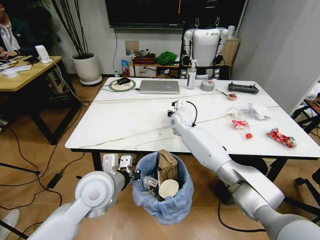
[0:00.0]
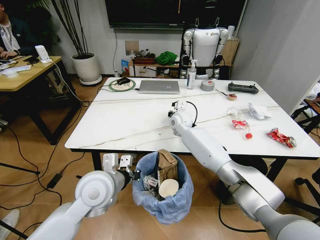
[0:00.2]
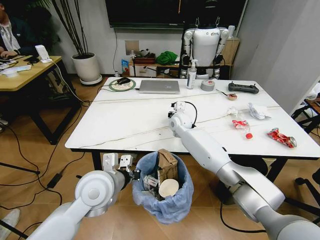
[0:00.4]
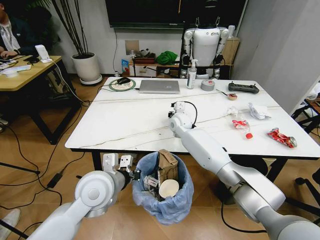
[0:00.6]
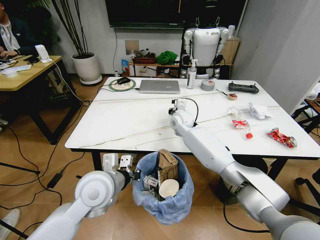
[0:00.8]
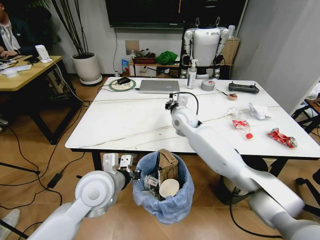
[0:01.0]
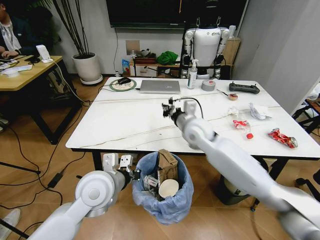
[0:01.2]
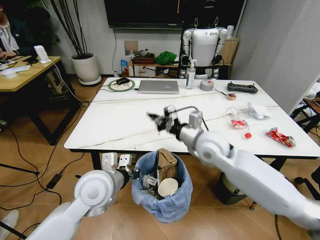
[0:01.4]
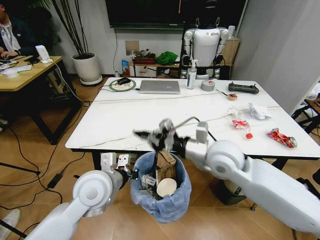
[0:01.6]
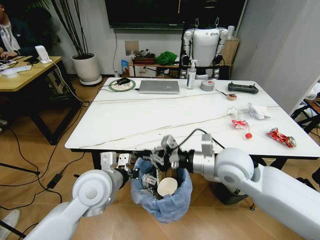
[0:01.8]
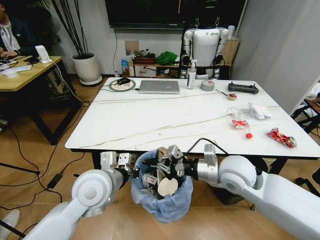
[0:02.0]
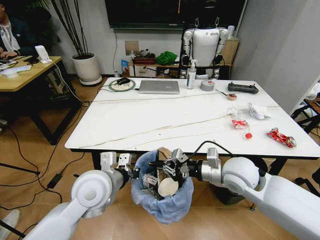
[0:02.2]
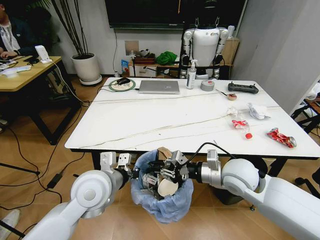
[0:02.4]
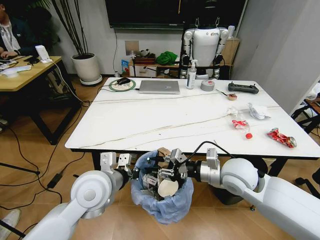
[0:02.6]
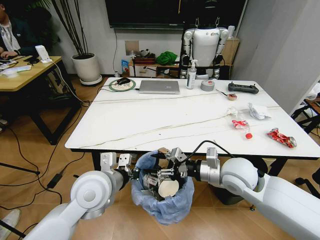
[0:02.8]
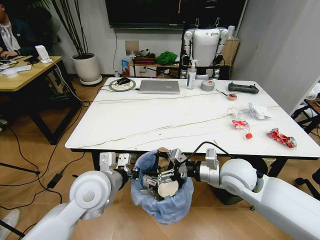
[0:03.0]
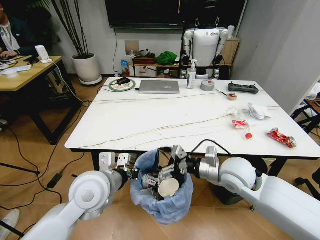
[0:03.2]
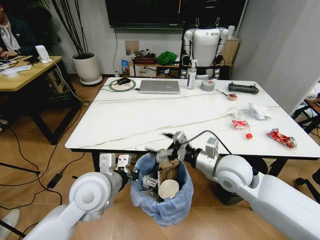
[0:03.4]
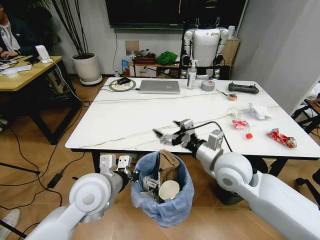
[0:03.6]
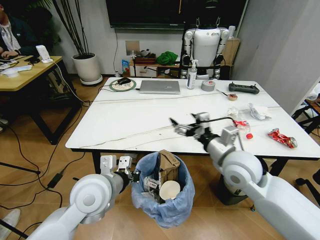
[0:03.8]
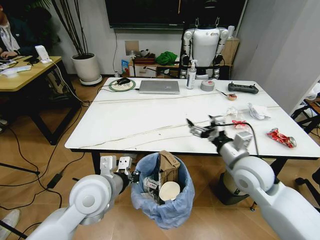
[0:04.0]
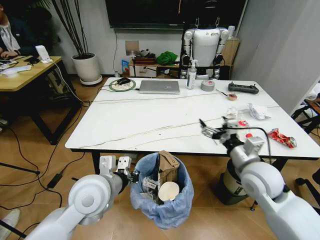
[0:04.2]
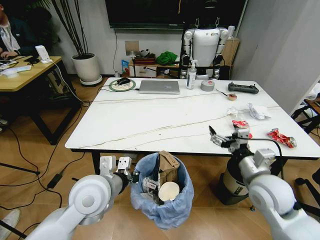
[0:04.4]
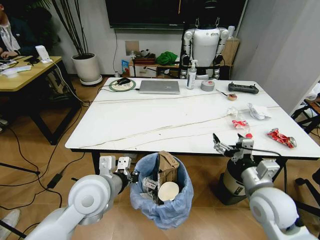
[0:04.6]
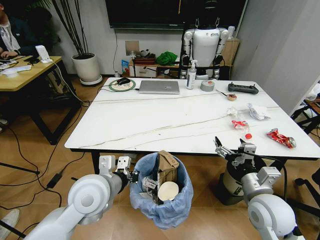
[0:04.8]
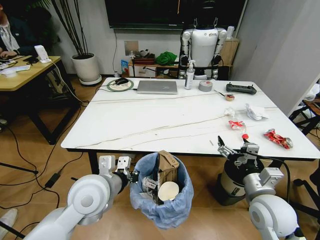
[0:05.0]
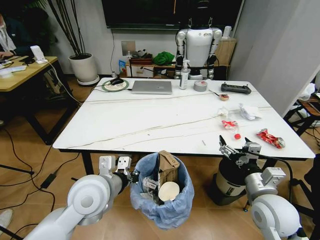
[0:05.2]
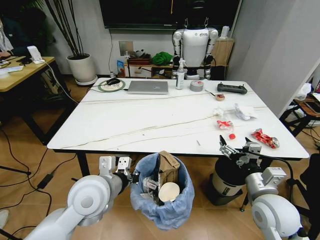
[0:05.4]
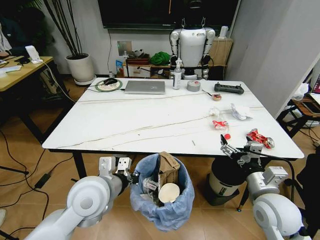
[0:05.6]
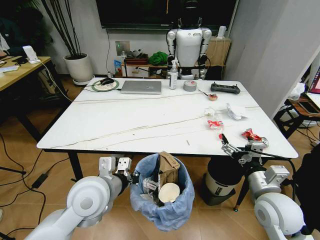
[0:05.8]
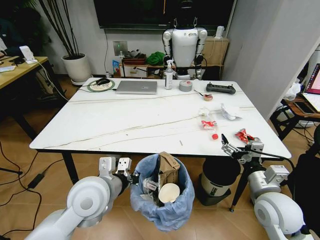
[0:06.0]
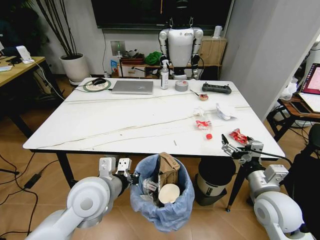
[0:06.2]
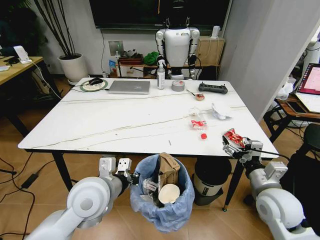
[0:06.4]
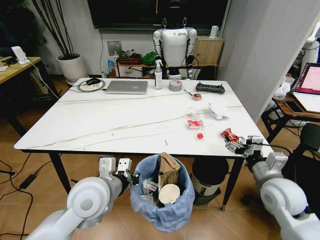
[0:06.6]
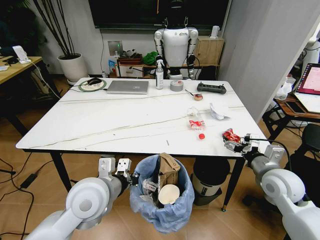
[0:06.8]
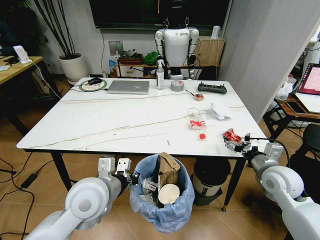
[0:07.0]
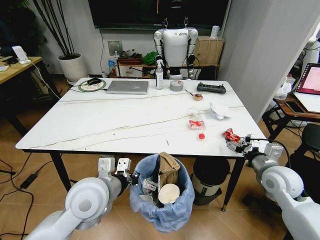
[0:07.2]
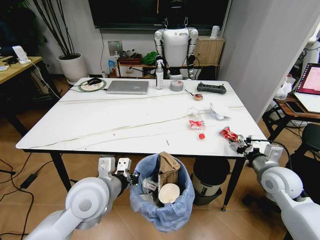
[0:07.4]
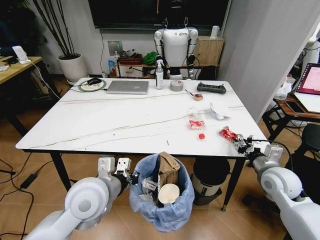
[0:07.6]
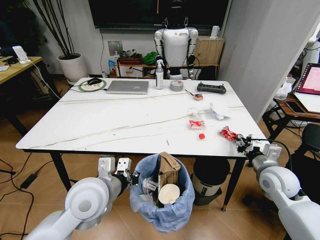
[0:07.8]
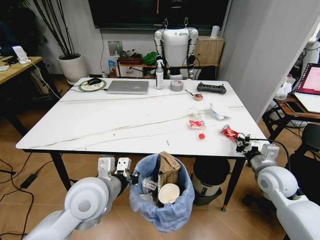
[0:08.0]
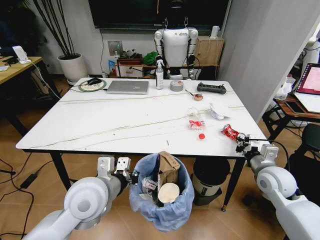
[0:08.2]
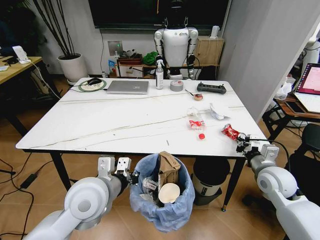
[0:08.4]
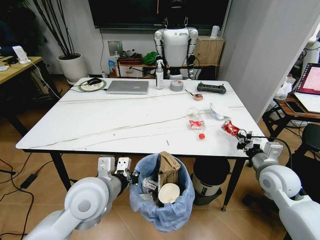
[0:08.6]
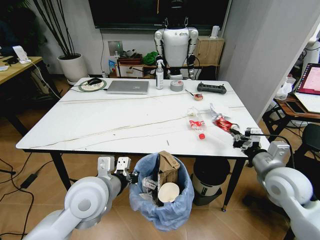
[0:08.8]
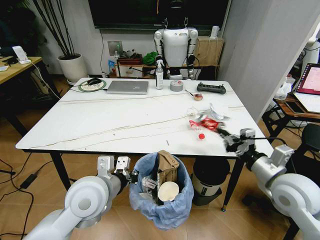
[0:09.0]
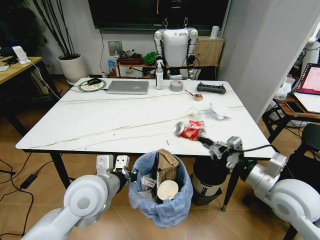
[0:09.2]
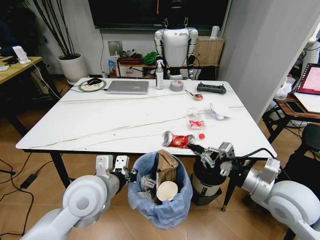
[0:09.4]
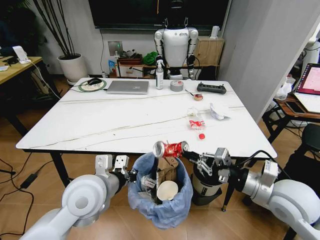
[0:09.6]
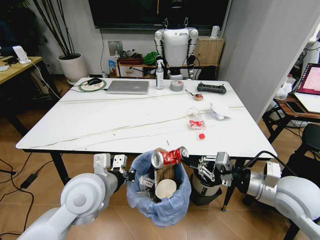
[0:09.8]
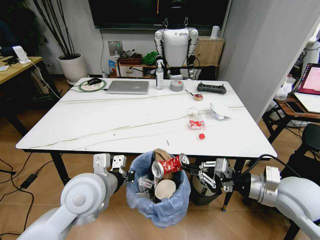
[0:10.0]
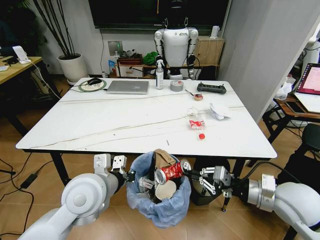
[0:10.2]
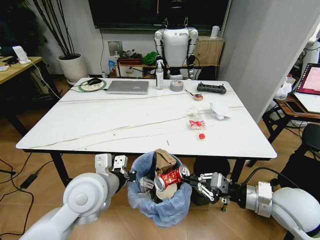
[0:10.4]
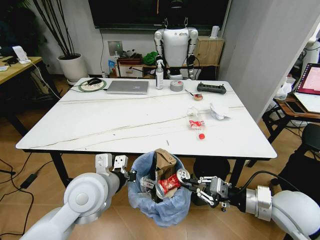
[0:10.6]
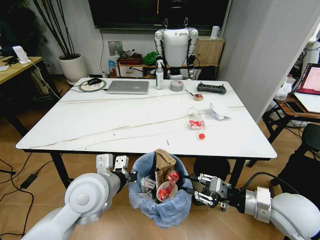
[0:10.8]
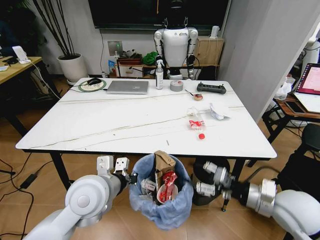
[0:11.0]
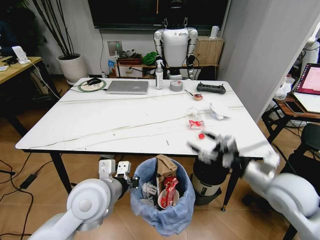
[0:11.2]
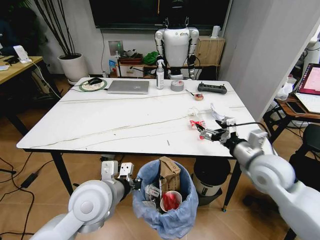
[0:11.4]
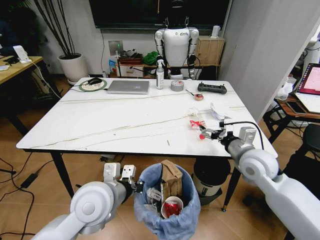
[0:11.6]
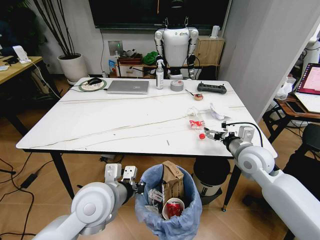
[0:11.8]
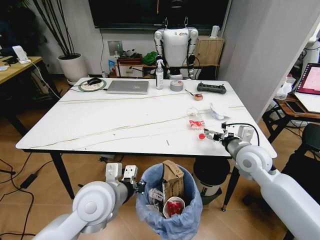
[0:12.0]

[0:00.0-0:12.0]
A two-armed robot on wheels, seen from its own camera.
Task of the whole recording: Pick up the trash bin and place the trash from the table into it.
0:00.0 to 0:01.6: The right gripper shifts roughly 25 cm backward, and closes its fingers.
0:01.6 to 0:03.0: The right gripper moves downward, about 5 cm, and opens.
0:03.0 to 0:04.4: The right gripper heads to the right and backward, covering about 10 cm.
0:06.0 to 0:07.6: The right gripper goes roughly 10 cm forward and to the right, and closes.
0:07.6 to 0:09.0: The right gripper heads upward and backward, covering roughly 10 cm, and closes its fingers.
0:10.4 to 0:12.0: The right gripper is displaced forward by roughly 15 cm, and opens its fingers.

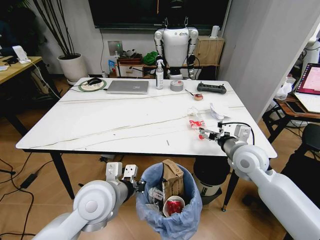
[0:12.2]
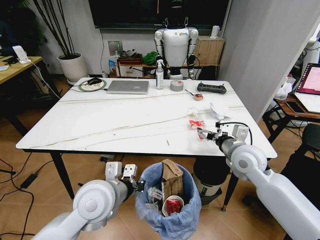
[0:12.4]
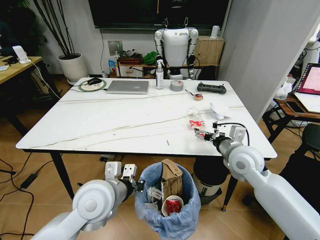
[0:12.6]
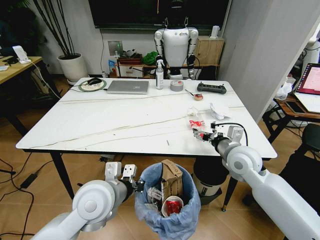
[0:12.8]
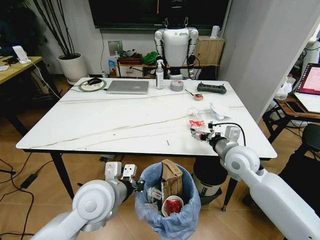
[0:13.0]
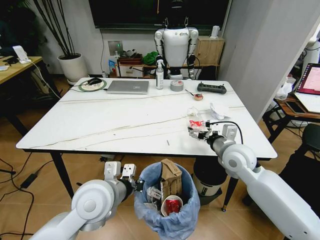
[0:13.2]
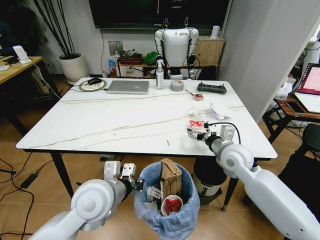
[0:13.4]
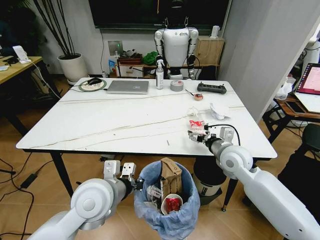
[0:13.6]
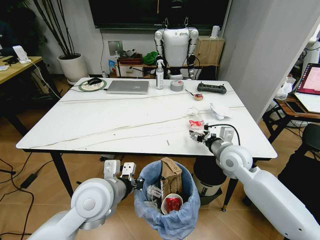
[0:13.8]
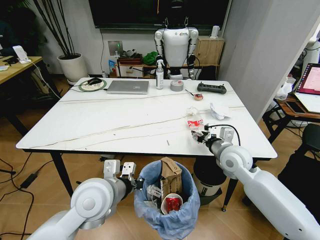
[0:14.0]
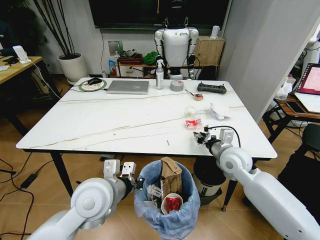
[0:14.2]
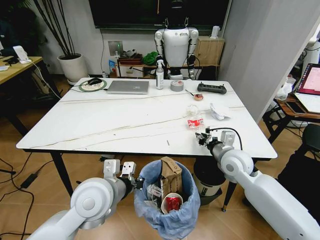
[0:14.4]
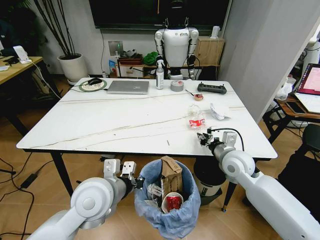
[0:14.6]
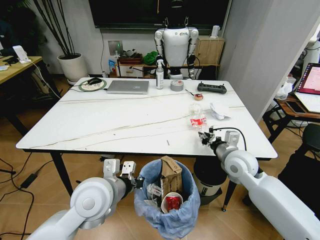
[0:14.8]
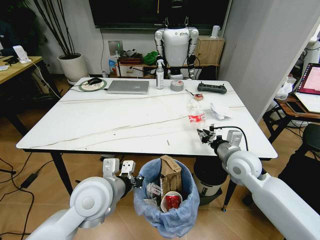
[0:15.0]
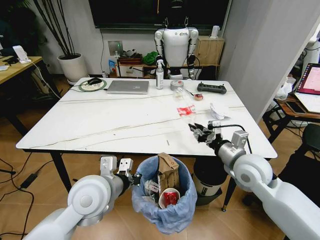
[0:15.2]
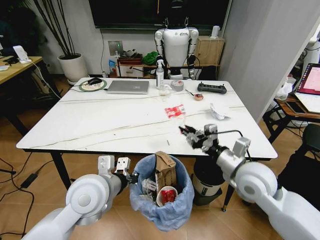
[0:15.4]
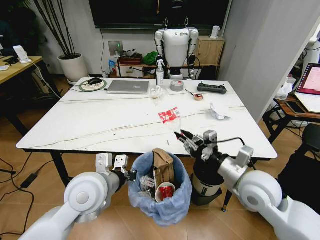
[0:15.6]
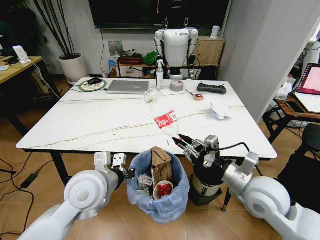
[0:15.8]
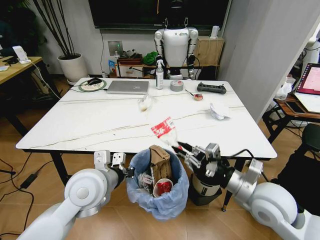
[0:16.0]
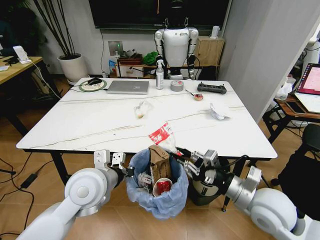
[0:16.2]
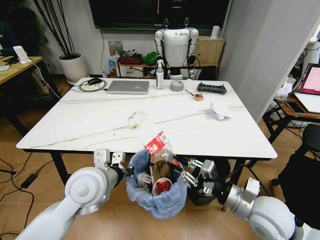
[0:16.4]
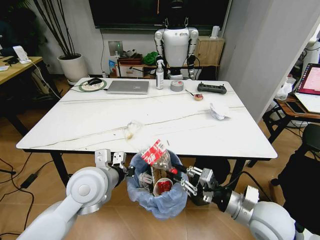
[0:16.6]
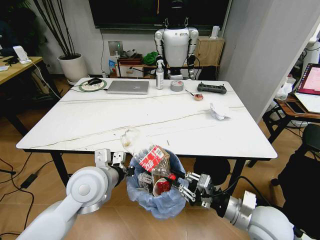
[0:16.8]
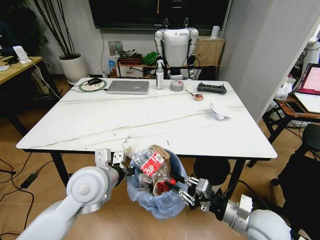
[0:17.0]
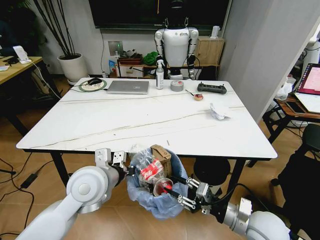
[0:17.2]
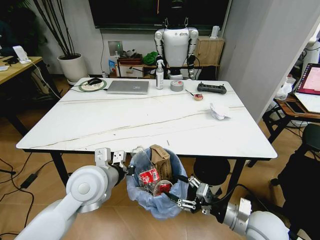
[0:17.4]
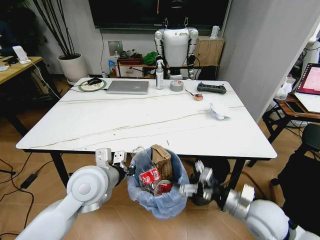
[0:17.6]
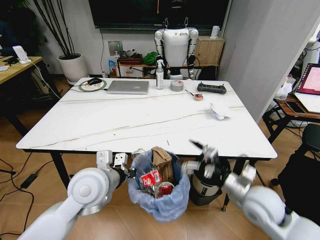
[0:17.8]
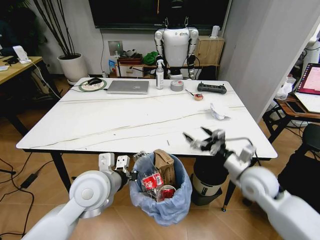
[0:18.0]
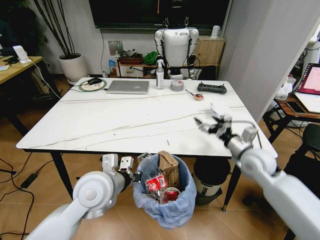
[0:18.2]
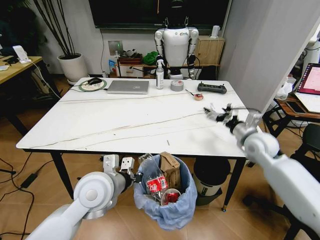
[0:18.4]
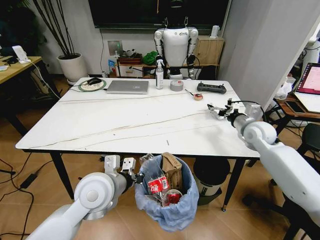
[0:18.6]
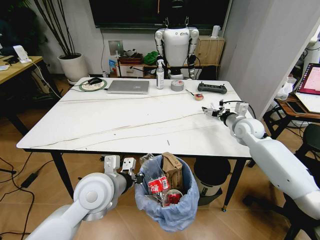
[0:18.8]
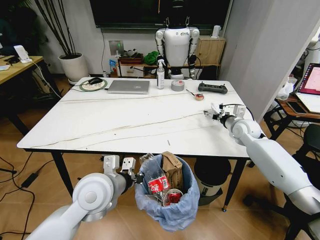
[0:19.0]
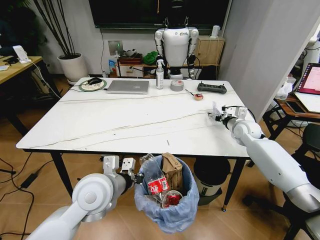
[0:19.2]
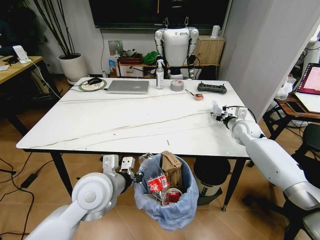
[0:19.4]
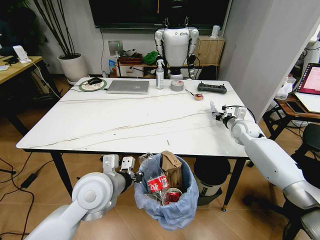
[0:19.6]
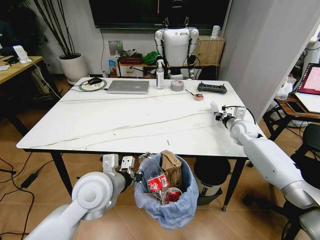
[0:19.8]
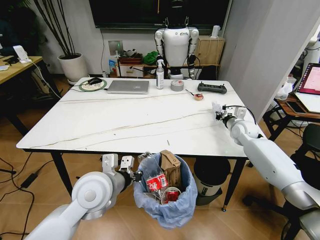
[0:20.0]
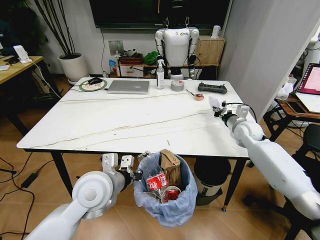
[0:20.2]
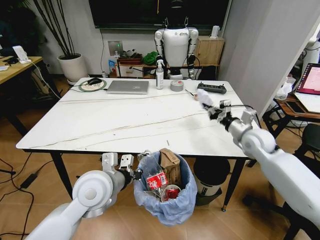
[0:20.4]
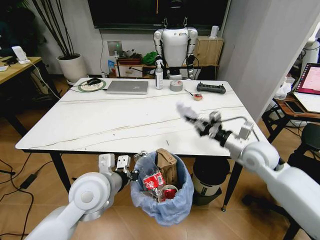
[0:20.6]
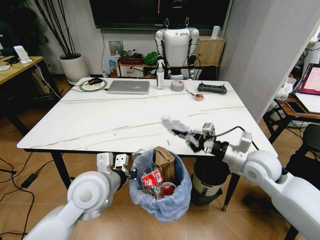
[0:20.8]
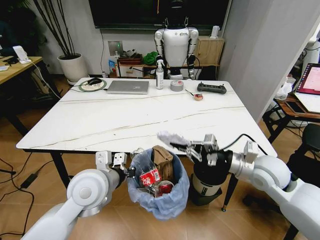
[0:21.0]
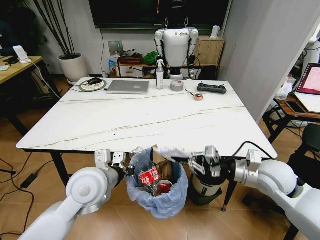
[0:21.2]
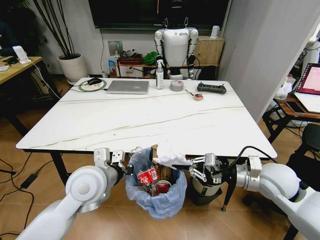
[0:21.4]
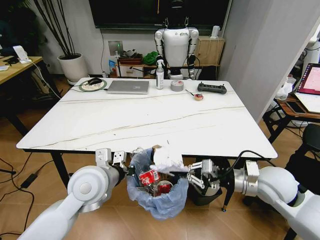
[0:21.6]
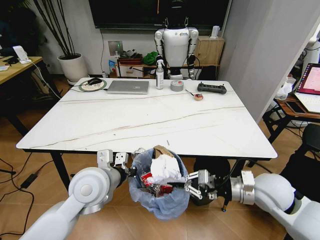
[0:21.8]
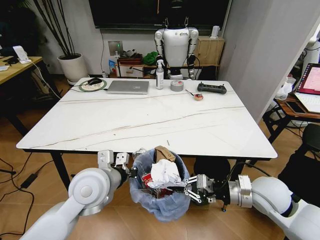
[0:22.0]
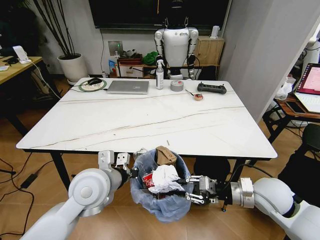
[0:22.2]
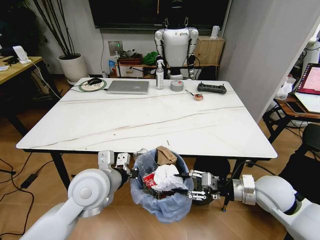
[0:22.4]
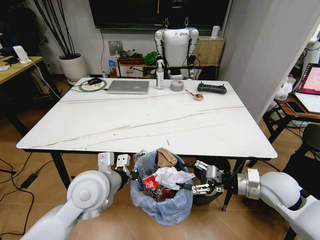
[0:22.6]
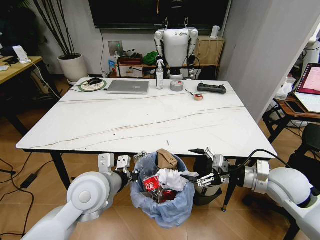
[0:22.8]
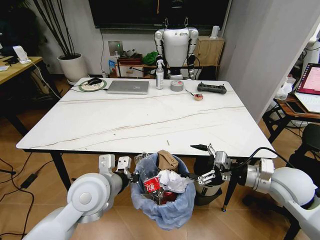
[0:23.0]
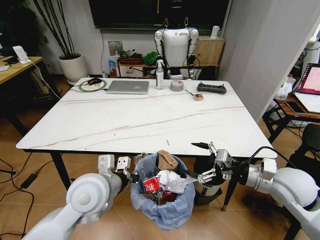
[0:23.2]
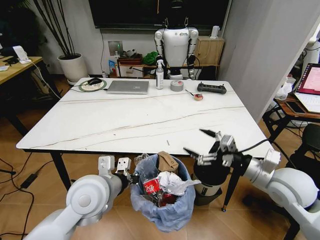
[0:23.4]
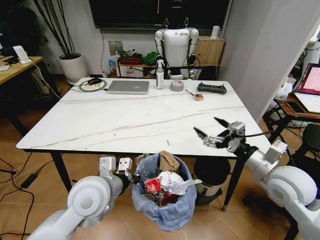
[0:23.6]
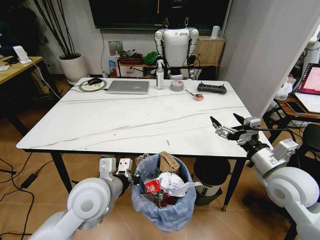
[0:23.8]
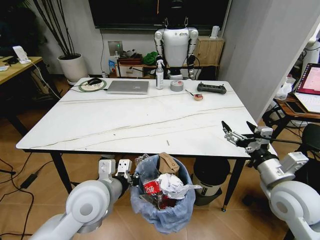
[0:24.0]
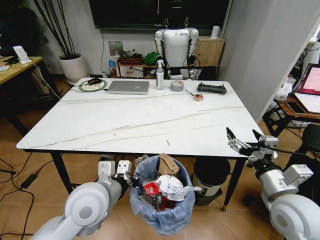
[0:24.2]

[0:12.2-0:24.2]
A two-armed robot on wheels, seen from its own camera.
Task of the whole recording: Pick up the trash bin and place the trash from the table into it.
0:12.2 to 0:13.8: There are only small adjustments of the grippers.
0:13.8 to 0:15.2: The right gripper shifts by about 5 cm, and closes.
0:15.2 to 0:16.6: The right gripper travels backward by about 15 cm.
0:16.6 to 0:18.2: The right gripper goes roughly 15 cm forward, and opens its fingers.
0:18.2 to 0:19.8: The right gripper shifts about 15 cm forward, and closes.
0:19.8 to 0:21.2: The right gripper goes some 25 cm backward.
0:21.2 to 0:22.6: The right gripper opens its fingers.
0:22.6 to 0:24.2: The right gripper travels backward by approximately 5 cm.
